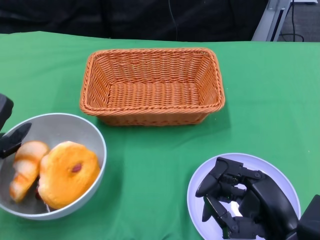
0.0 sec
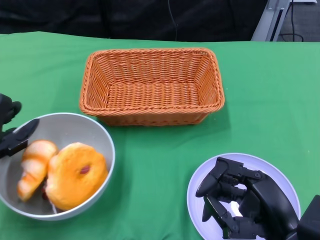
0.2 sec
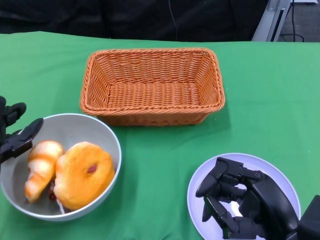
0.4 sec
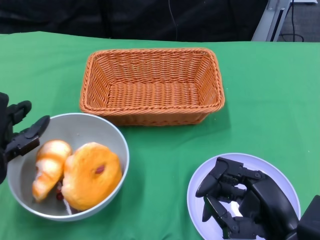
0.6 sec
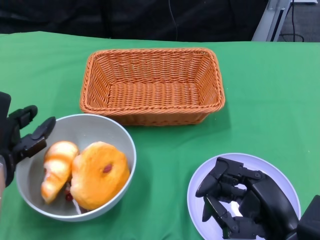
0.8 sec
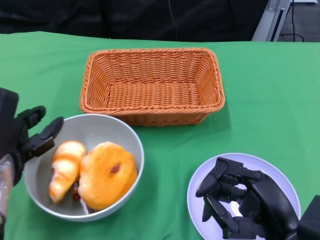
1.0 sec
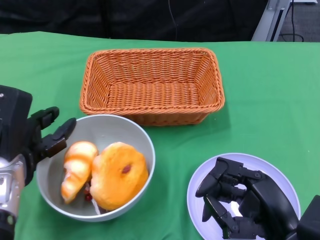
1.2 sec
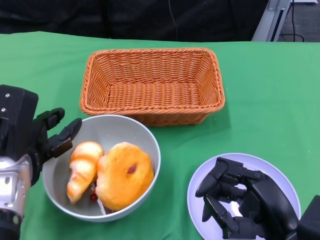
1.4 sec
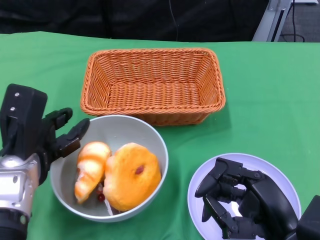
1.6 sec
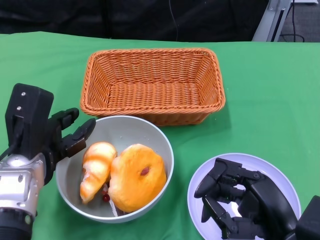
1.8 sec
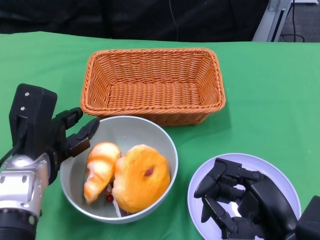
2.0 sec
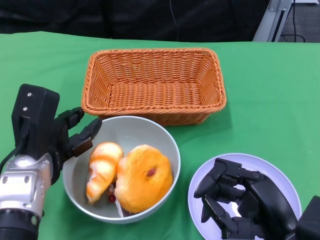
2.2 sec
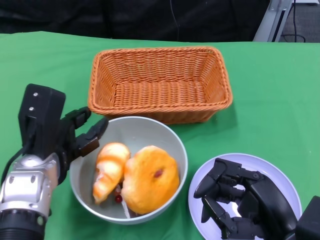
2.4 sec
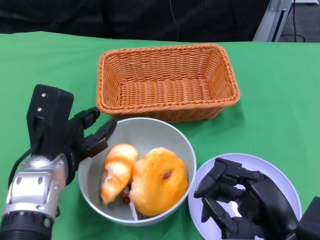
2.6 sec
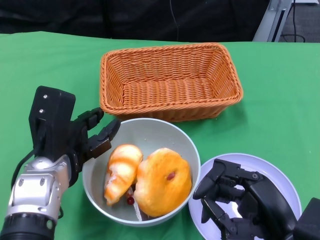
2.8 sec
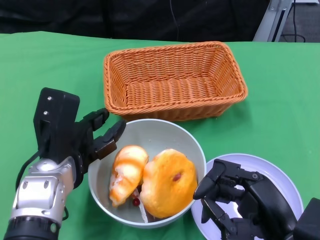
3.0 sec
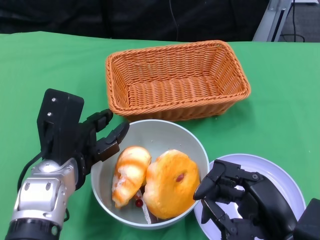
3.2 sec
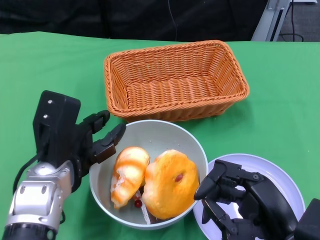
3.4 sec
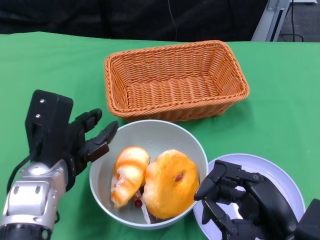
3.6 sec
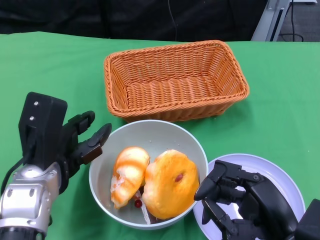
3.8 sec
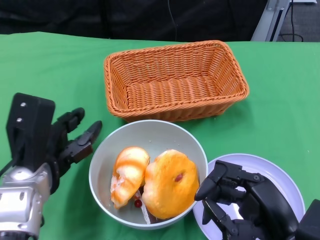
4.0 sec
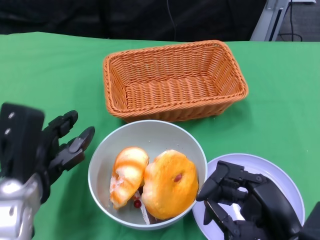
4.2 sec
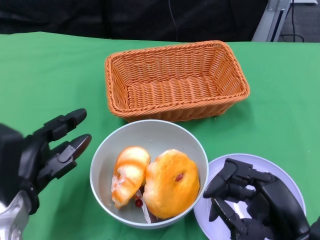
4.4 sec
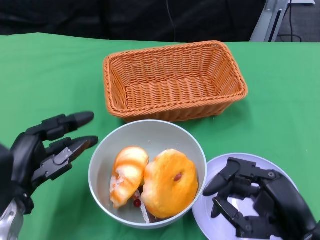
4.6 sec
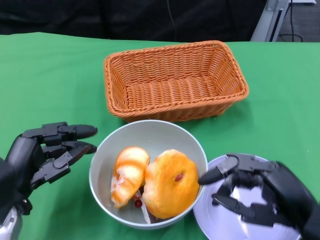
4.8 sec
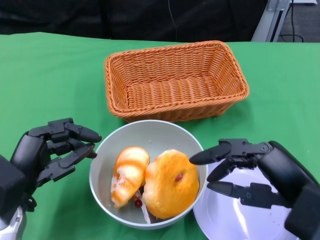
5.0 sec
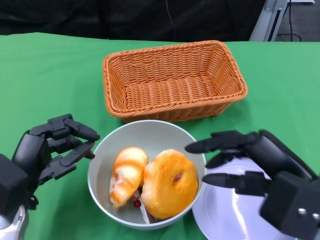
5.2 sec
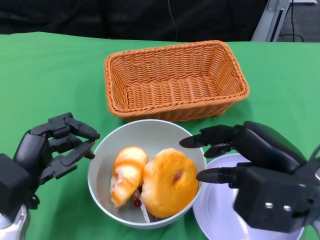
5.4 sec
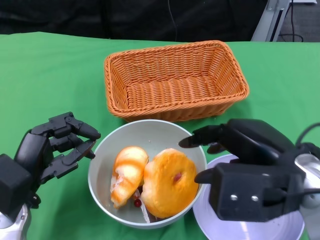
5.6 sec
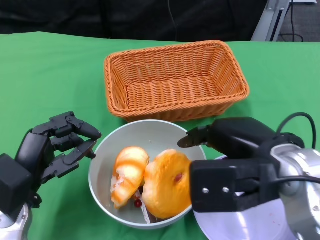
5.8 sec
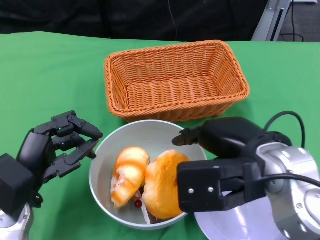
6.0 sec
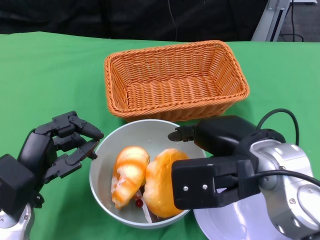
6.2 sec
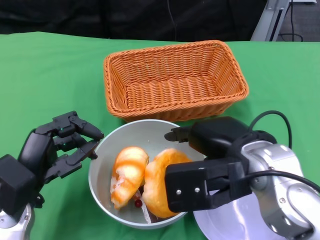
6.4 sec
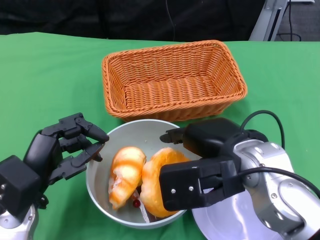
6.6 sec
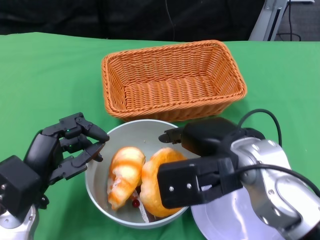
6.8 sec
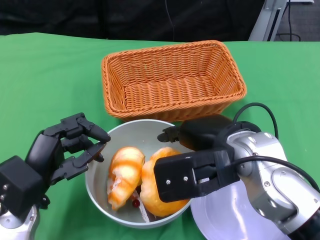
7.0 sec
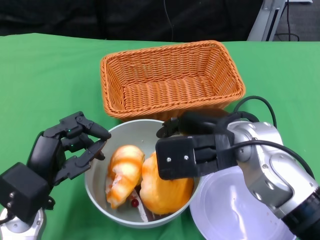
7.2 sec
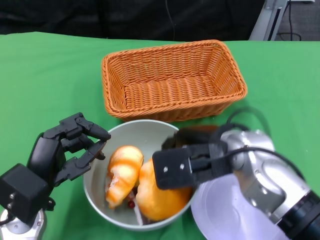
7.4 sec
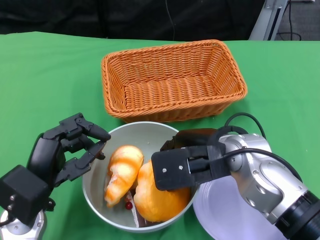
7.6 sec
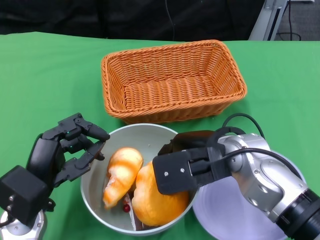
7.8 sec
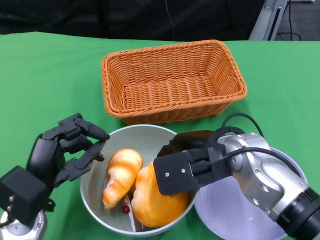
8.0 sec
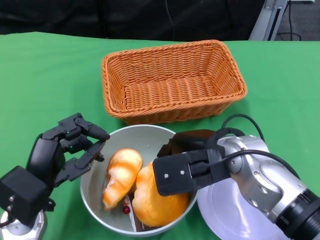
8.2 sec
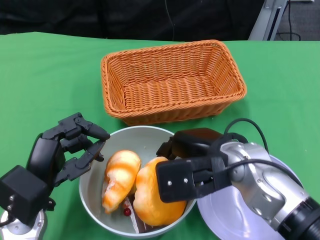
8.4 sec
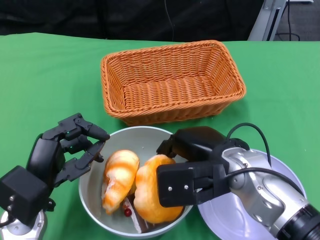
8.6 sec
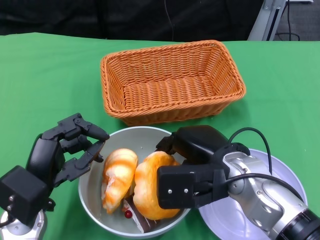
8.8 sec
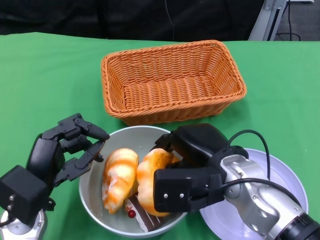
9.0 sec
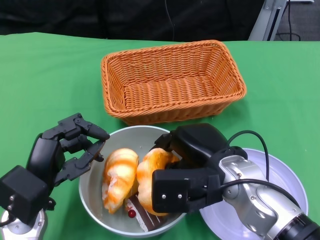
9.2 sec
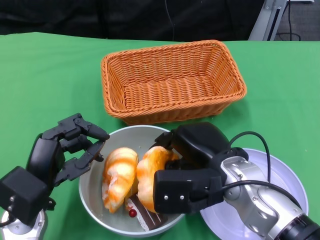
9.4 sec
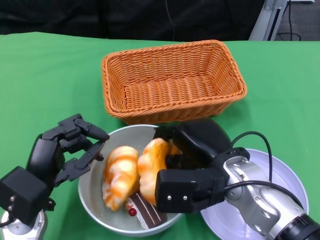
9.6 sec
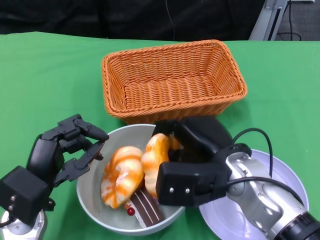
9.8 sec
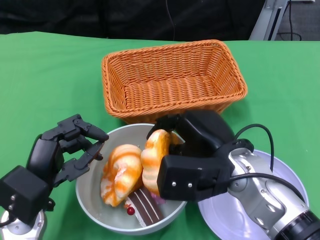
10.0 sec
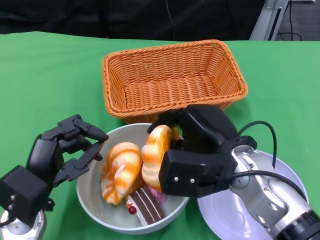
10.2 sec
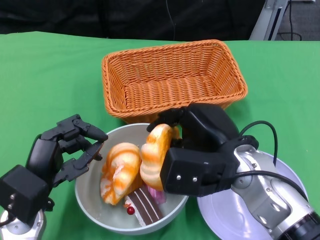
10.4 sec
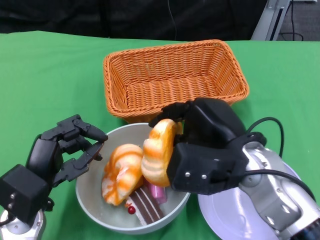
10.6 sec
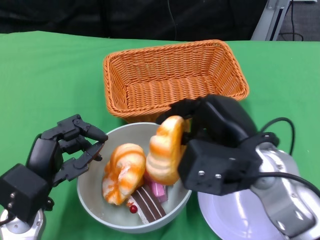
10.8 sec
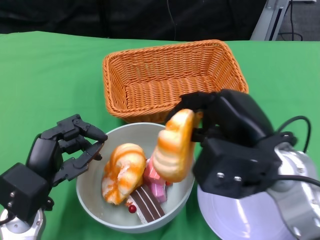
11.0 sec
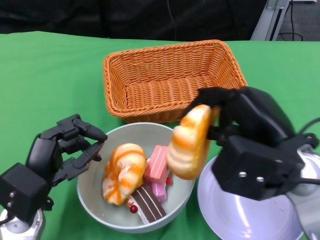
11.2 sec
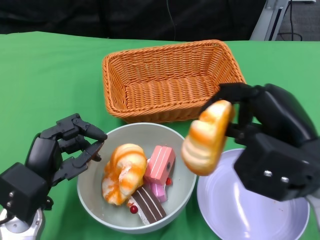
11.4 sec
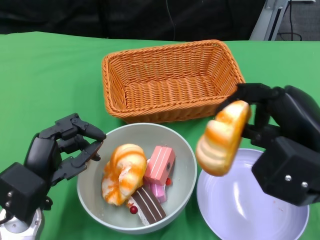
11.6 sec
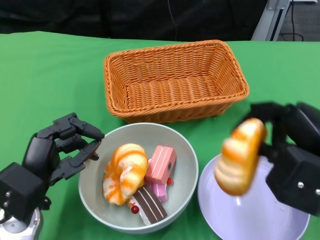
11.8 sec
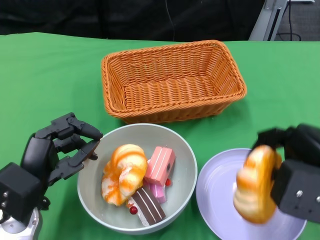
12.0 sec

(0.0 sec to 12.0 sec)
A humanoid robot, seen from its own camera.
Step, 0.0 sec - 3.4 sec: Push the bowl to the center of the table using the left gripper.
0.0 sec - 1.6 sec: The left hand goes about 5 cm to the right.
1.6 sec - 3.0 sec: The left hand moves approximately 5 cm.
3.0 sec - 4.4 sec: The left hand shifts roughly 5 cm to the left.
4.4 sec - 6.0 sec: The right hand travels upward, forward and to the left by approximately 15 cm.
6.0 sec - 7.6 sec: The right hand ends up approximately 5 cm from where it was.
10.4 sec - 12.0 sec: The right hand is displaced to the right and backward by about 15 cm.

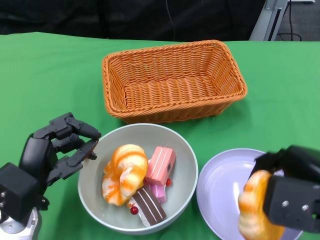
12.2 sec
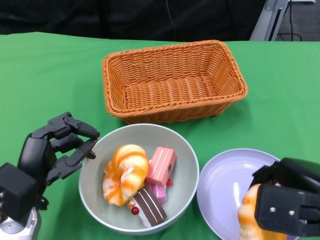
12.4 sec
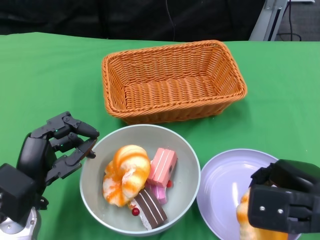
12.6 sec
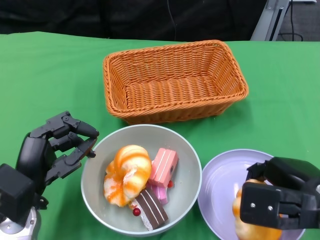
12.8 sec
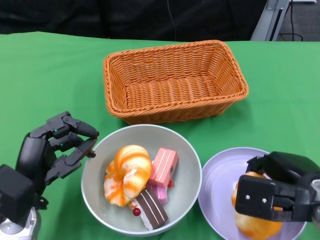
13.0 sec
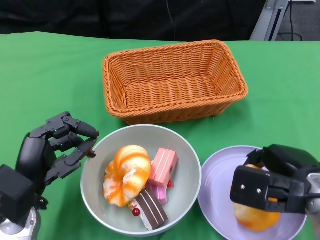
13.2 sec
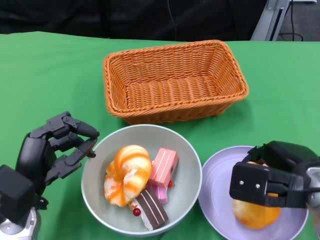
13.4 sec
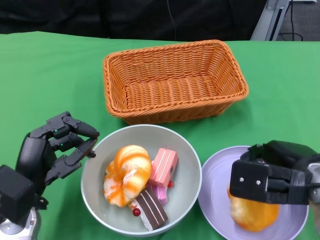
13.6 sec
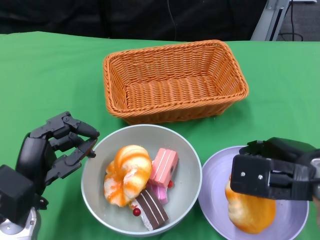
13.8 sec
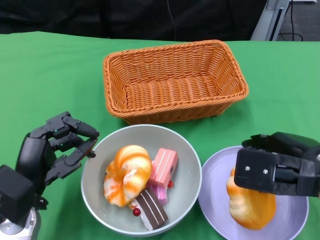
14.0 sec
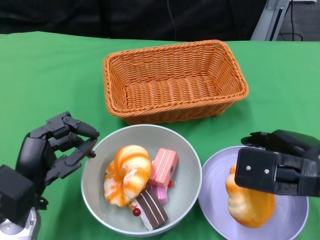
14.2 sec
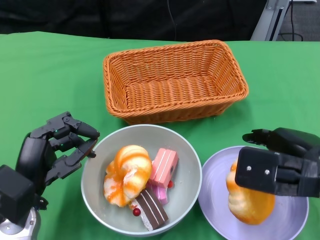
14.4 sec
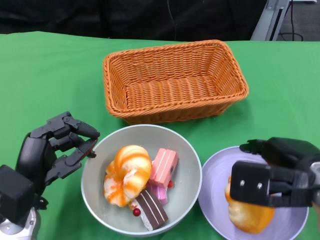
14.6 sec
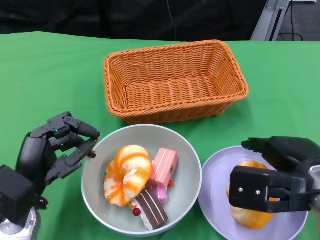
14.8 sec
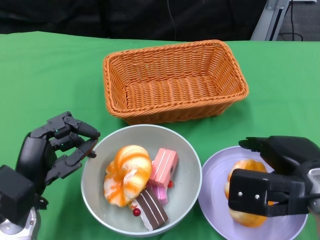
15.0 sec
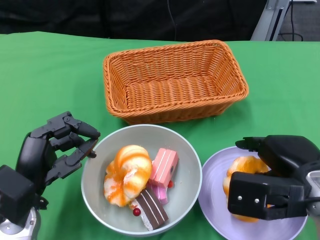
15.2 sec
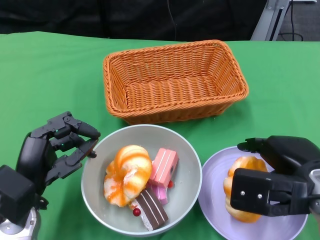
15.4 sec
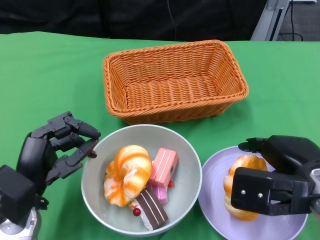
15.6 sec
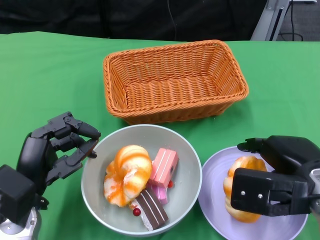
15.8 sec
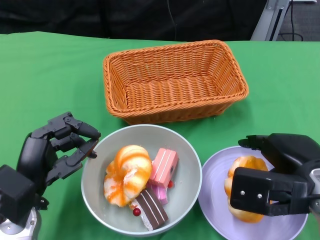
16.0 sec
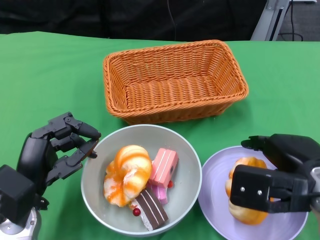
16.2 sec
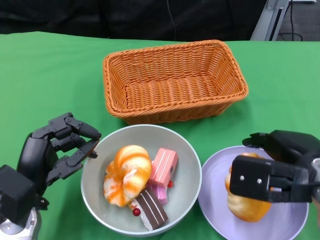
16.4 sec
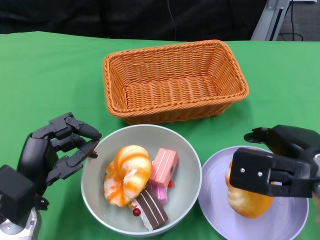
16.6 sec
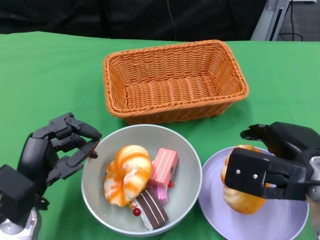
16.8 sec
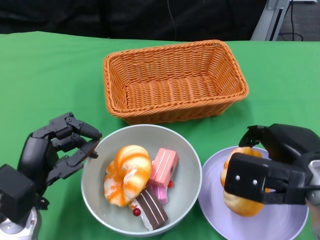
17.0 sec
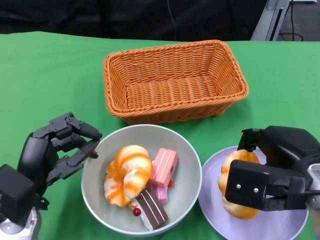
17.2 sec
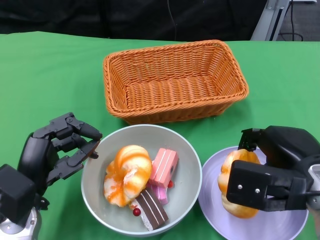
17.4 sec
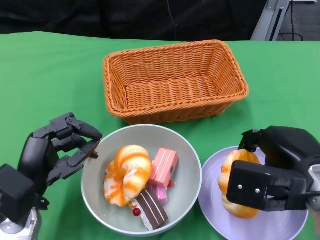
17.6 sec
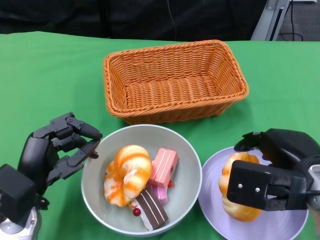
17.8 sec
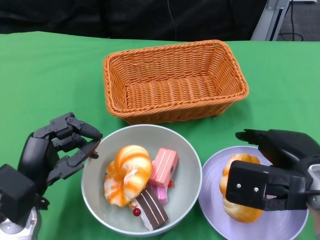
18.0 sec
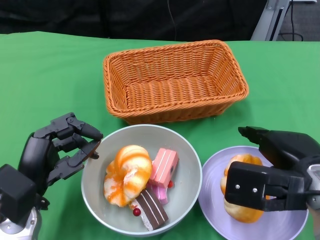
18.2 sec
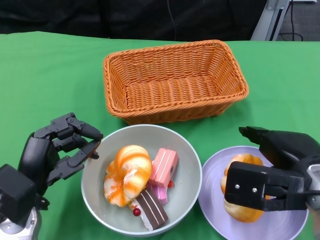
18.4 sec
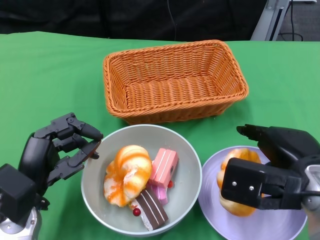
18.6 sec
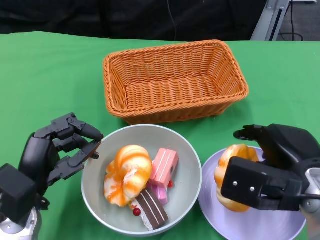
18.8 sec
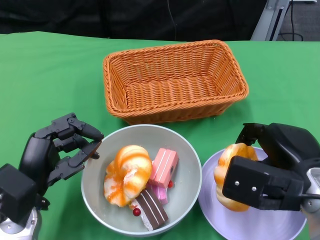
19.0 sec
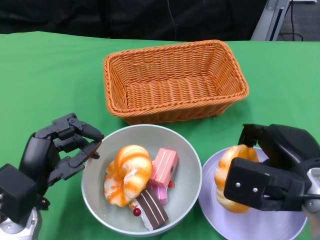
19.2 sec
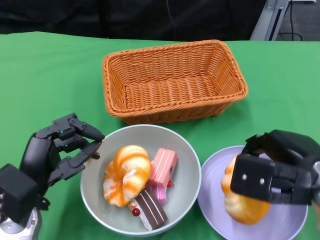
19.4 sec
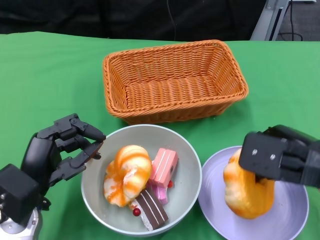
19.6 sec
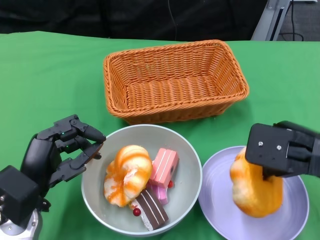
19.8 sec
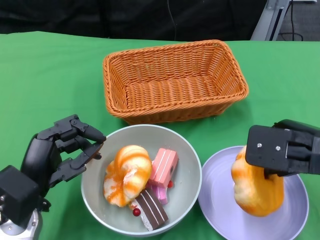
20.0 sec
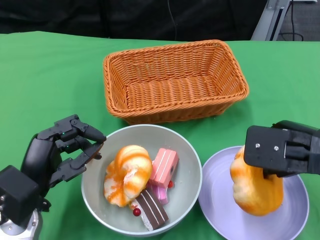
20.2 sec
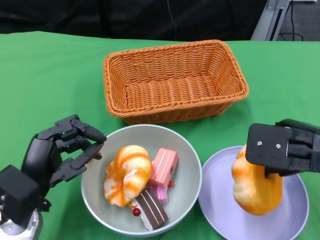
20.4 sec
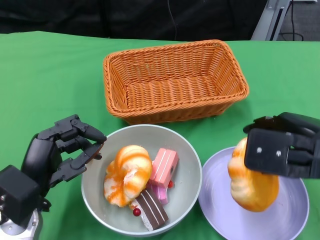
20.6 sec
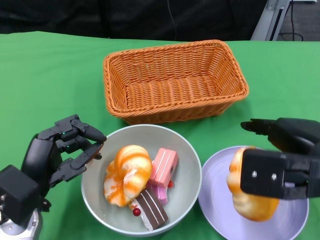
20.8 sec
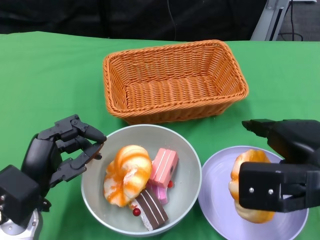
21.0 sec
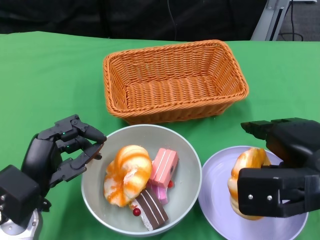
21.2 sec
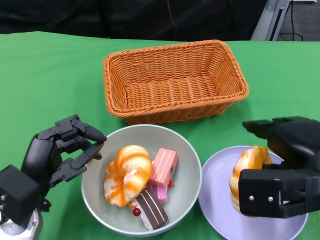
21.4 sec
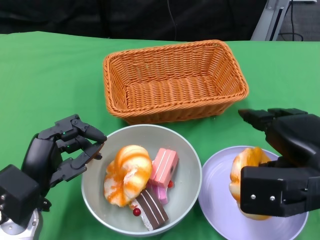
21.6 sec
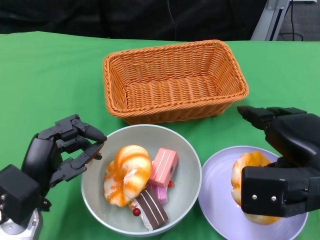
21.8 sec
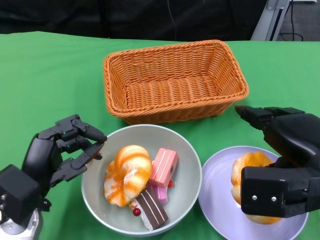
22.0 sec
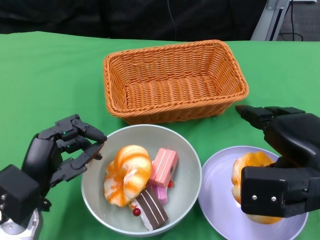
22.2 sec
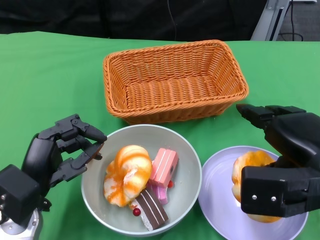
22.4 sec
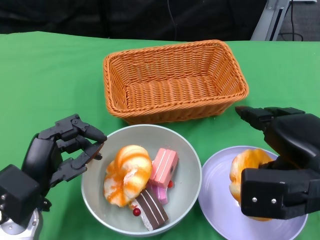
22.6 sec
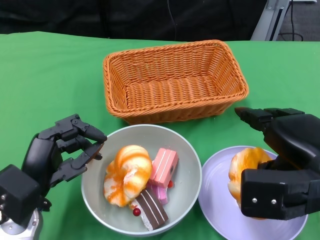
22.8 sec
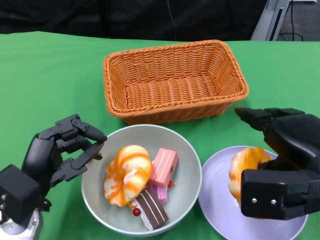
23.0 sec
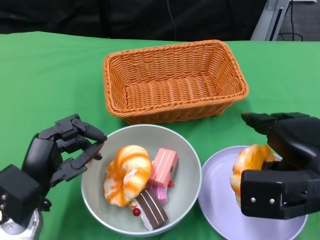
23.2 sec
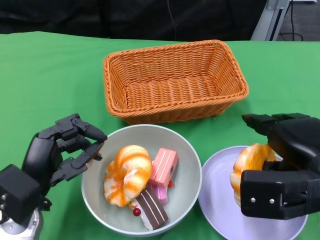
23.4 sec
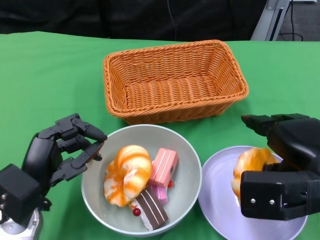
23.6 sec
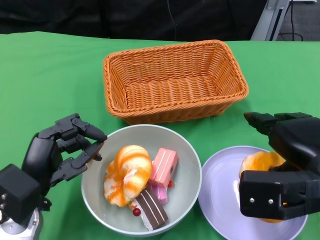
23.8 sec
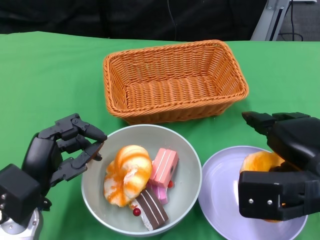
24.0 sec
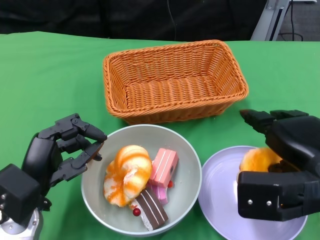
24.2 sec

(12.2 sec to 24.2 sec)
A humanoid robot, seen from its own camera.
12.2 sec - 13.8 sec: The right hand moves approximately 5 cm.
13.8 sec - 18.2 sec: There are only small adjustments of the hands.
18.2 sec - 19.8 sec: The hands make only small movements.
21.2 sec - 24.2 sec: The hands make only small movements.
